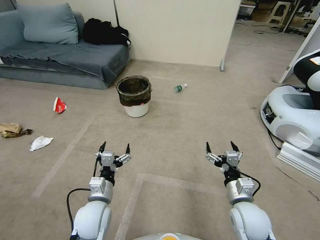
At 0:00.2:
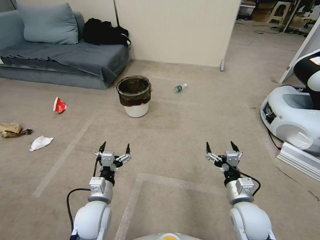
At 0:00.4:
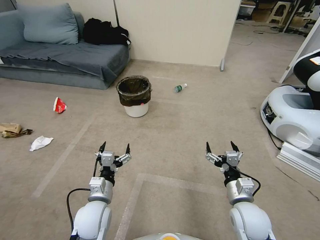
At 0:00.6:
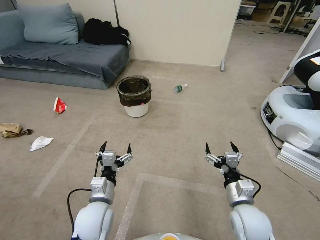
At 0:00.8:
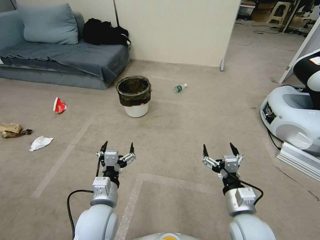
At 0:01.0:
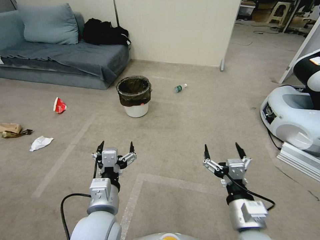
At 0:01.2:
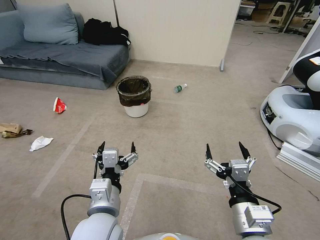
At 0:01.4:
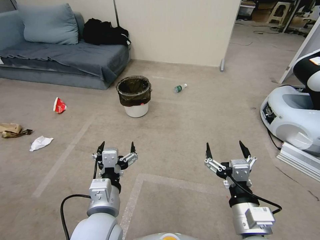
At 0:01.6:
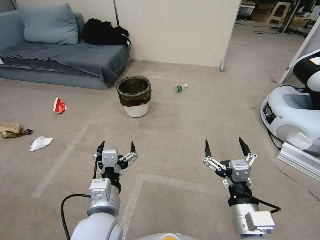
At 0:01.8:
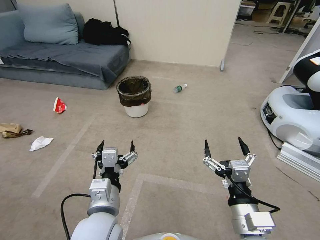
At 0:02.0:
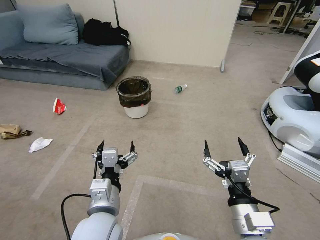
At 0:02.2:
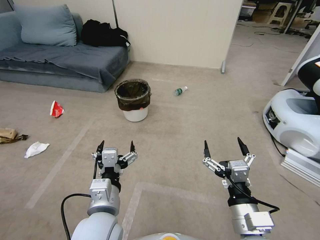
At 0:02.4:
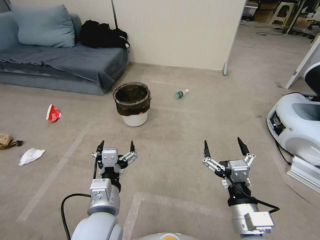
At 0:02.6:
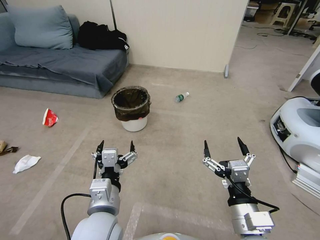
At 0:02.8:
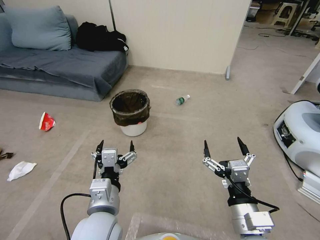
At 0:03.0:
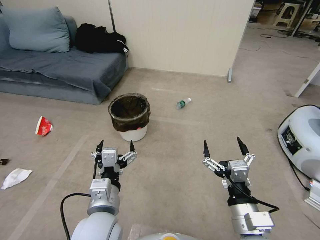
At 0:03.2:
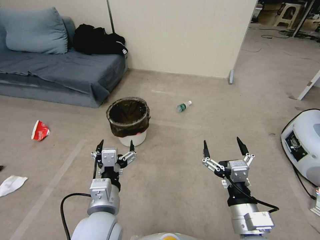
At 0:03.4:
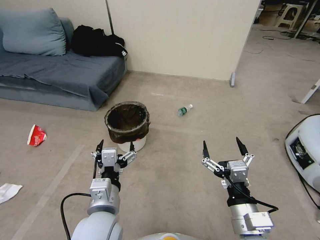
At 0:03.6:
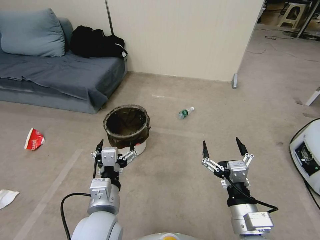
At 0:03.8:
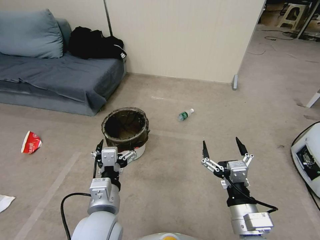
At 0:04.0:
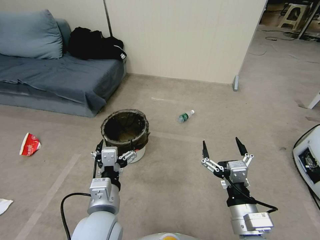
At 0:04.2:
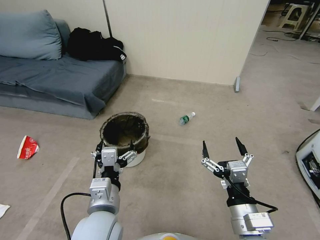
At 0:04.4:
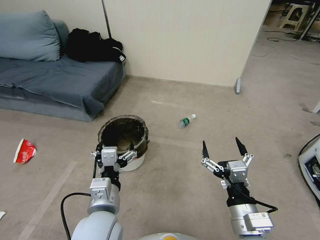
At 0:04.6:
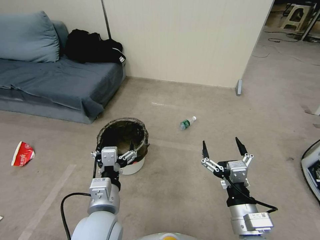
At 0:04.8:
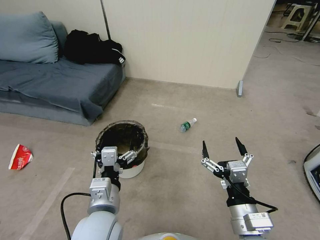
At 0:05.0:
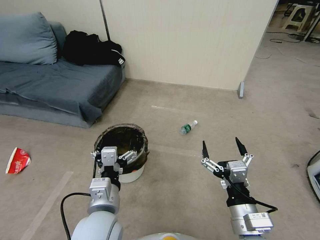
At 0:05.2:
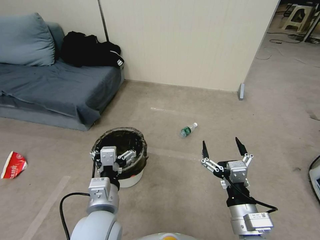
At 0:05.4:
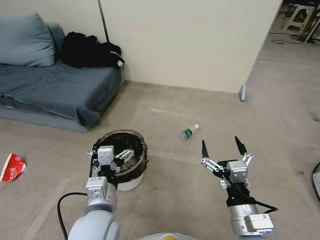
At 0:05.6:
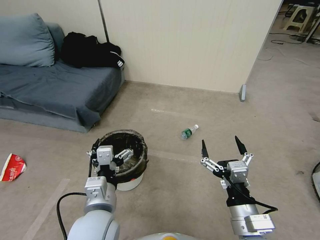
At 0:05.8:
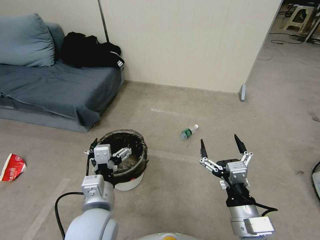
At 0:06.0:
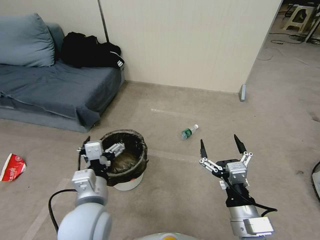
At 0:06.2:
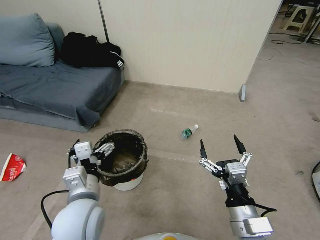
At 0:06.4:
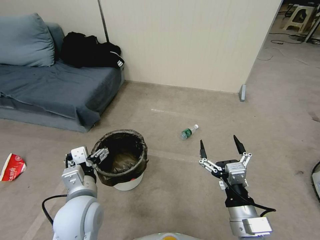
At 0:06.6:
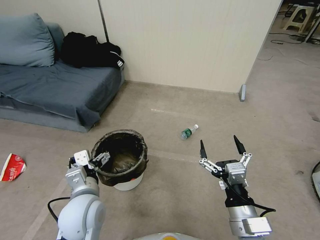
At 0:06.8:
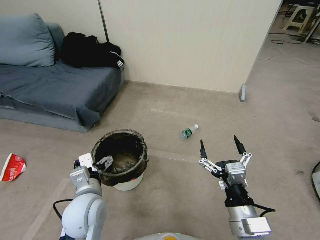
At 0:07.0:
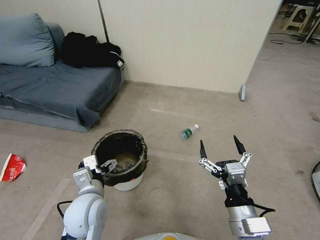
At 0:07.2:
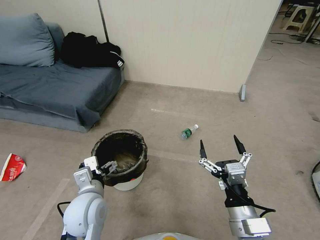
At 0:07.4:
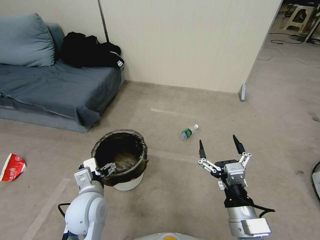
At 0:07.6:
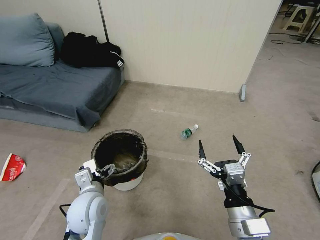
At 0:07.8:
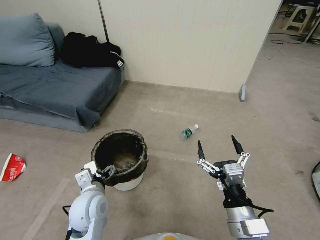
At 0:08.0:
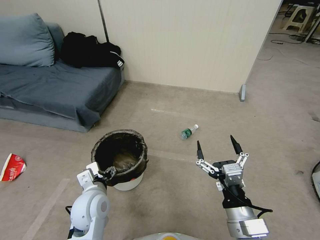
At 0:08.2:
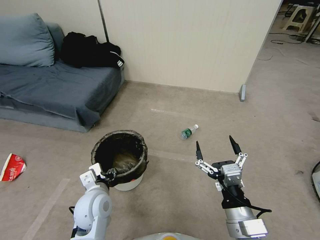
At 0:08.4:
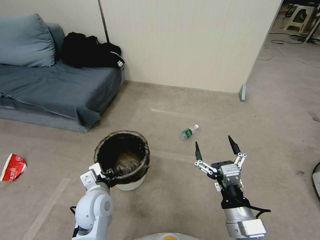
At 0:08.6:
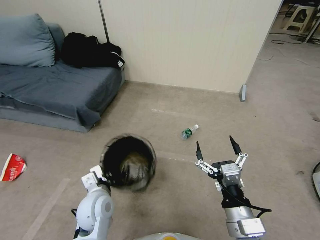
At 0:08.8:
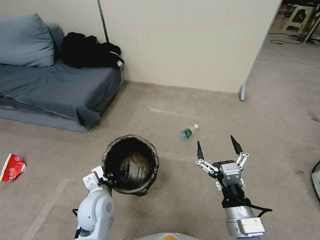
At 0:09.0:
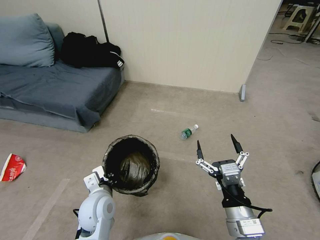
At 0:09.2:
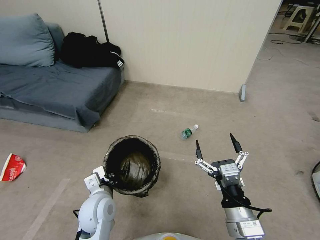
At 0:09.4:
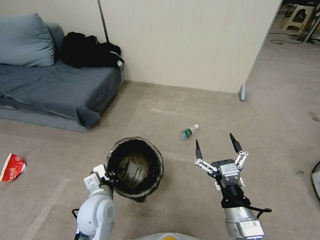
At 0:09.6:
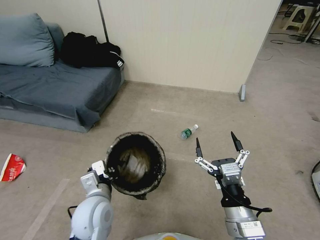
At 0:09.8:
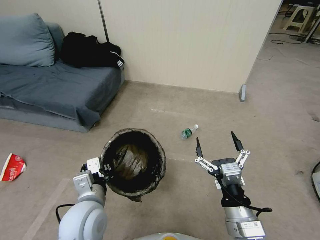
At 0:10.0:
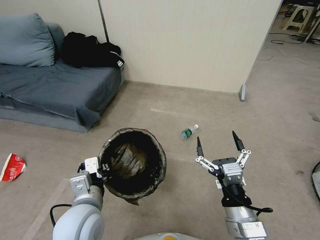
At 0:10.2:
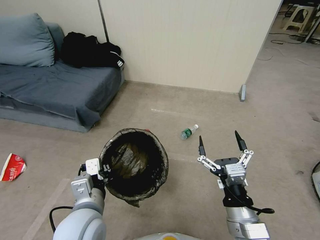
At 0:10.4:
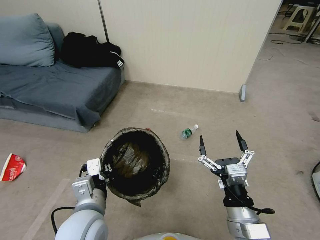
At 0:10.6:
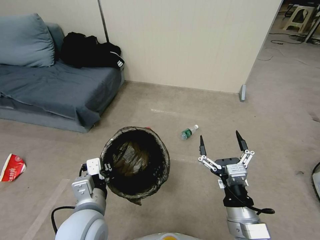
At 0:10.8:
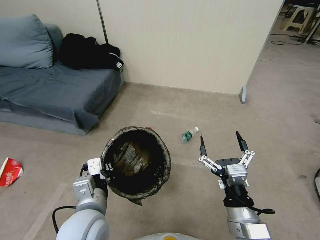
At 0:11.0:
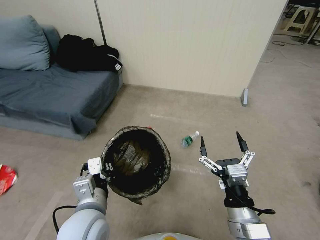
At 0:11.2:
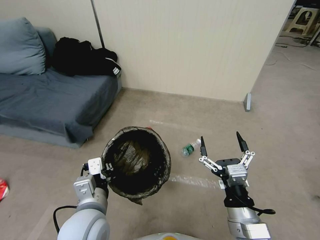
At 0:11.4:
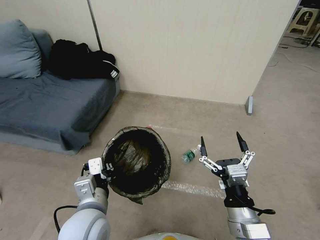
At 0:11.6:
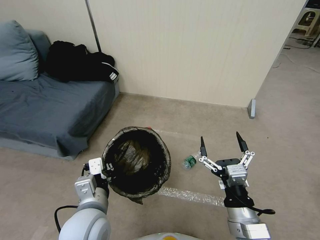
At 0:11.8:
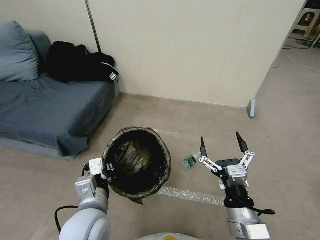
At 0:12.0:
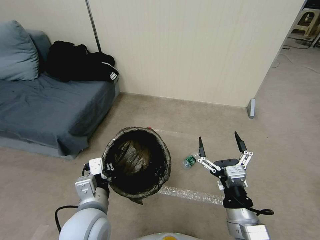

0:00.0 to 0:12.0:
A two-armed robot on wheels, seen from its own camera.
Task of the whole recording: Pick up the trash bin, then pick up the garbage from the floor and place it into the trash bin.
0:06.0 to 0:07.6: The left gripper travels downward by about 5 cm.
0:07.6 to 0:09.0: The left gripper closes.
0:09.0 to 0:10.4: The left gripper heads upward and backward, covering roughly 10 cm.

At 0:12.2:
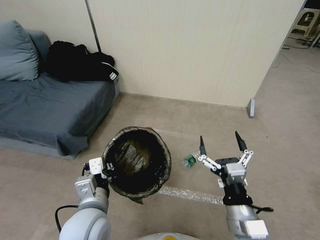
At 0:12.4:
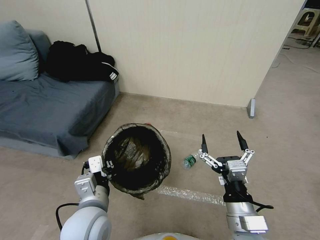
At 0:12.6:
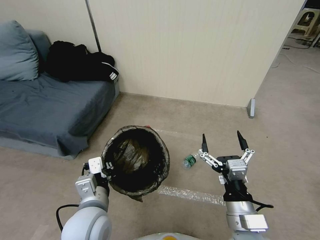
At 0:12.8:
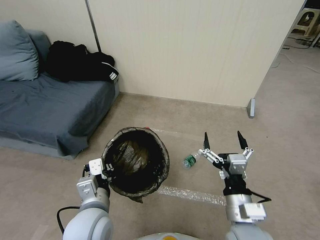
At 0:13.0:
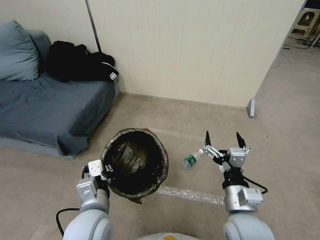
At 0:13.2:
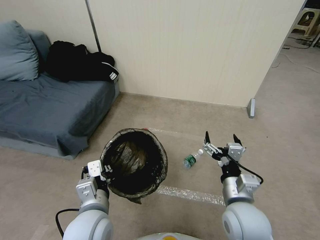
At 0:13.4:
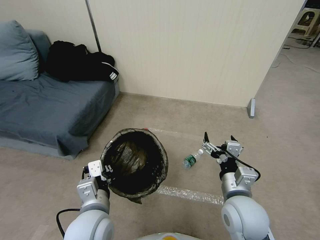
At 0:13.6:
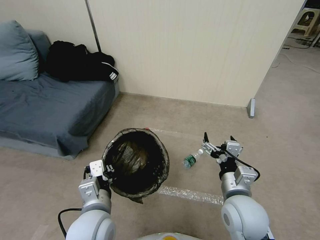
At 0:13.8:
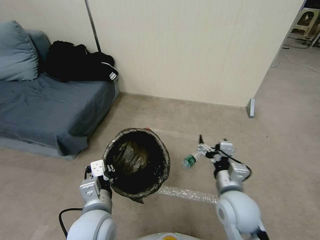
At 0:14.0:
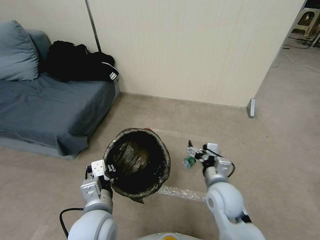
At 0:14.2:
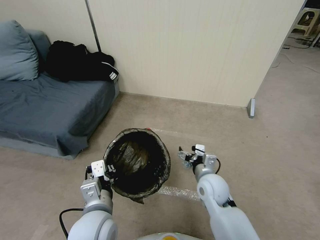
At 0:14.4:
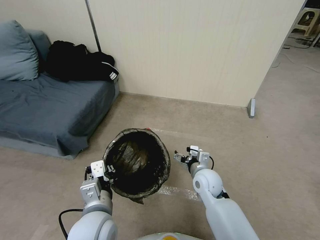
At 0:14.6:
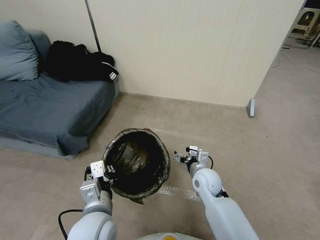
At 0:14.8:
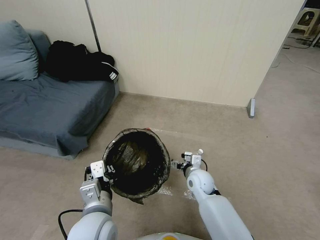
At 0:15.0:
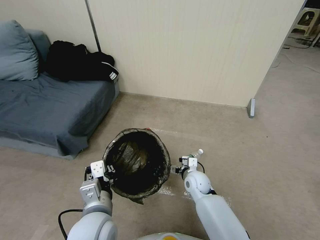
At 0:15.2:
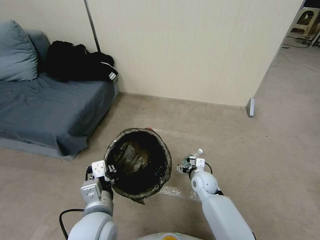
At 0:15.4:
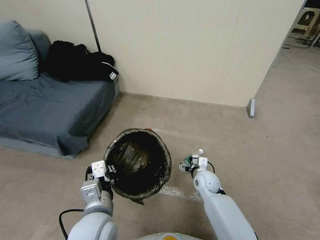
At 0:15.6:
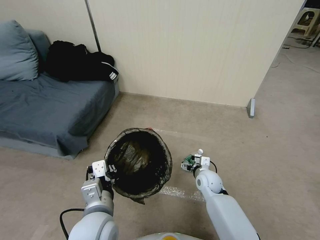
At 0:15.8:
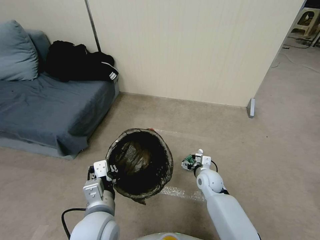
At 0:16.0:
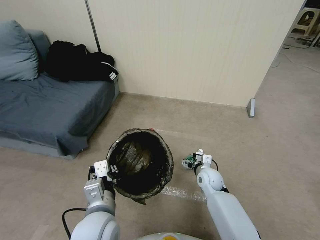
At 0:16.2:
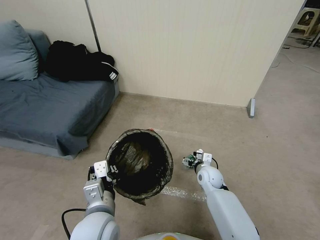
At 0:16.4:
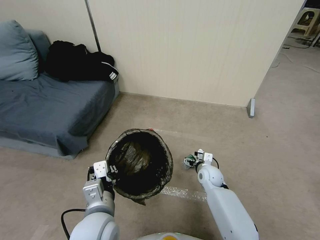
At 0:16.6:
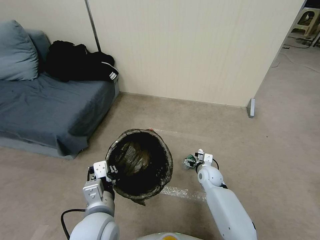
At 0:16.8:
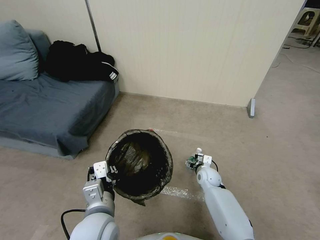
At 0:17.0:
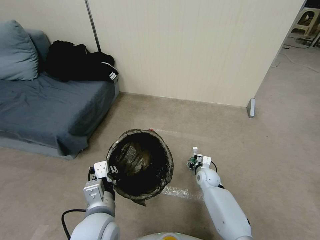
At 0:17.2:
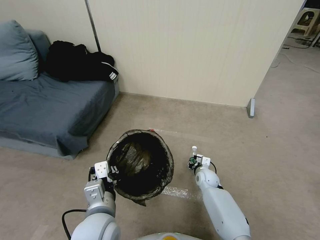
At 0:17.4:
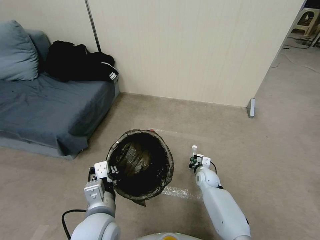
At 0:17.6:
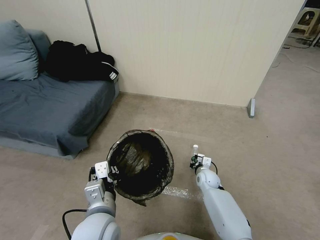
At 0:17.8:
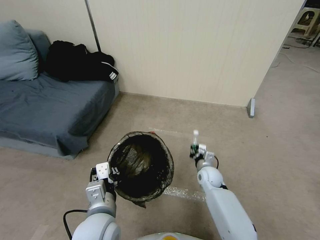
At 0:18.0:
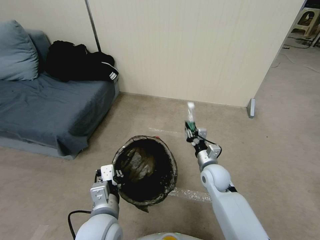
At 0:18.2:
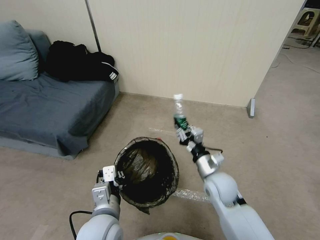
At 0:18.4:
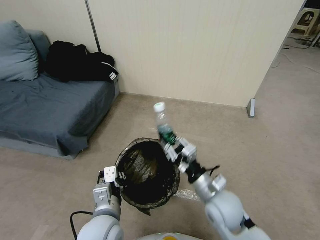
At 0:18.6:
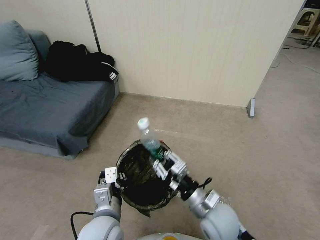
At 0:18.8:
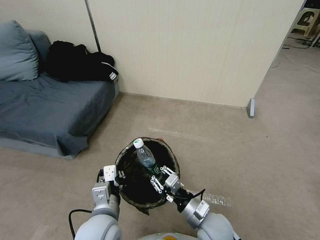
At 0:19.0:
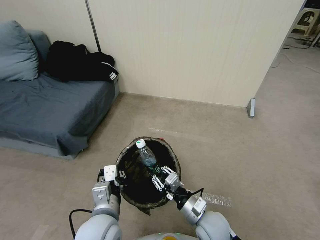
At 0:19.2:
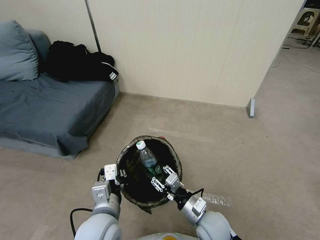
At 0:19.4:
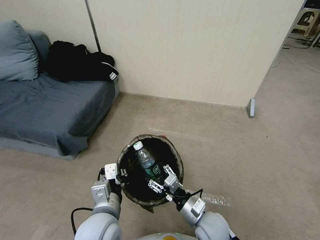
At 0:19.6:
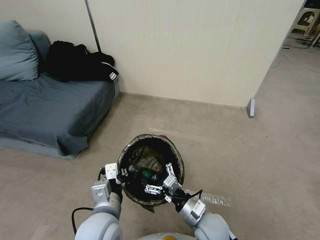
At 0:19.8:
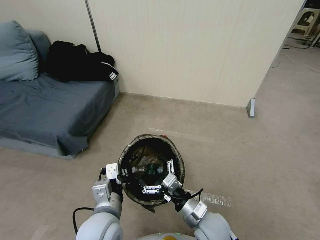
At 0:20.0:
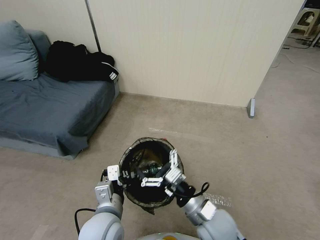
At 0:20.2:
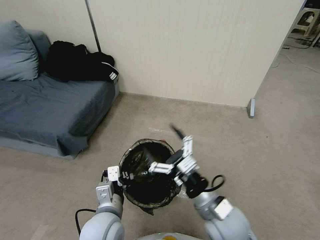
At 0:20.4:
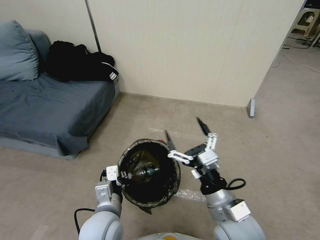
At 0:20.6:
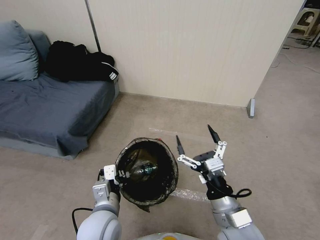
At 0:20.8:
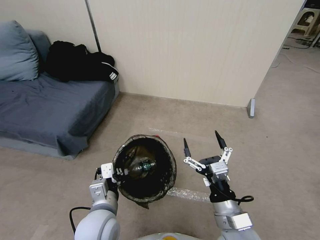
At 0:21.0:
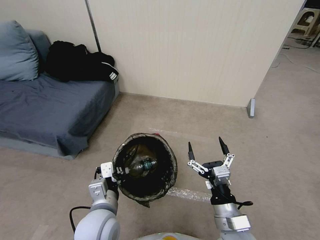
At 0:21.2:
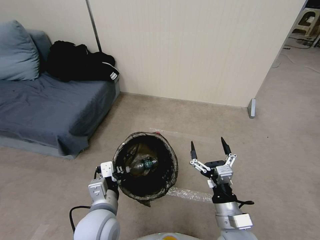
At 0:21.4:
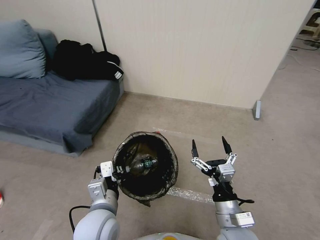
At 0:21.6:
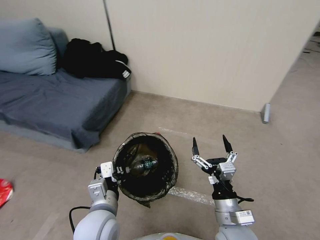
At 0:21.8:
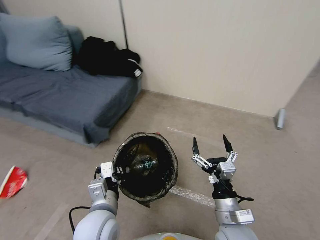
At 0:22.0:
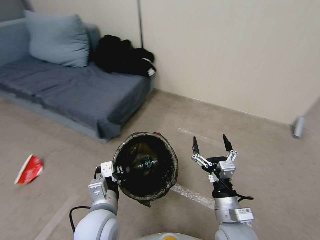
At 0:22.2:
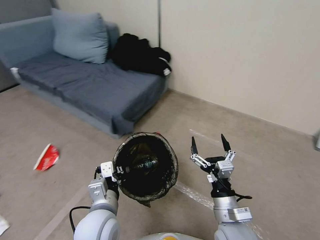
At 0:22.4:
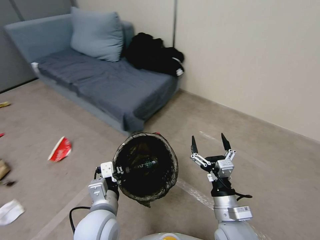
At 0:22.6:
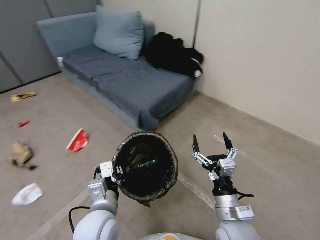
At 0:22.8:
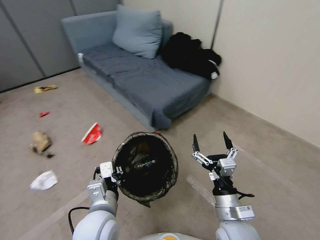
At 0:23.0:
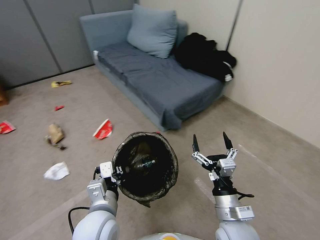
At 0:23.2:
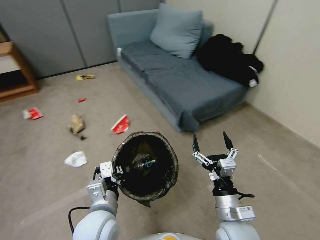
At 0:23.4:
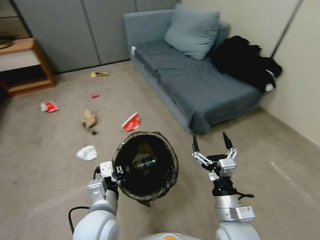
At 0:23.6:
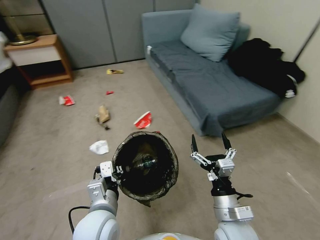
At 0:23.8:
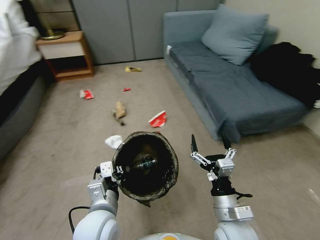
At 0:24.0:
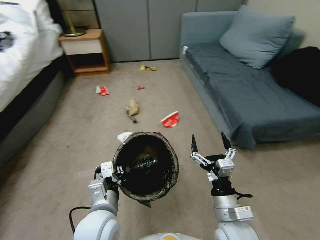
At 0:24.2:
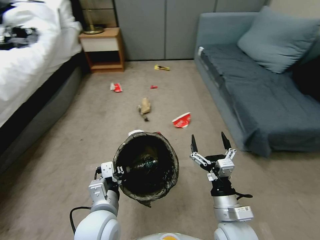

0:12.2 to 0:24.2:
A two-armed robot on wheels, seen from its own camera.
Task of the whole recording: Pick up the trash bin, then pick up the garbage from the floor and place it into the trash bin.
0:12.2 to 0:13.8: The right gripper heads forward, covering approximately 10 cm.
0:13.8 to 0:15.2: The right gripper travels downward and forward by roughly 20 cm.
0:15.2 to 0:16.6: The right gripper ends up roughly 5 cm from where it was.
0:16.6 to 0:18.2: The right gripper moves upward and backward, approximately 15 cm, and closes.
0:18.2 to 0:19.8: The right gripper travels backward by about 10 cm, and opens up.
